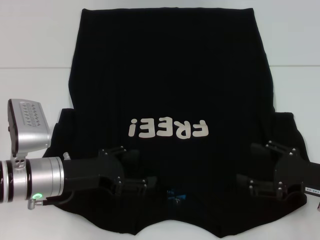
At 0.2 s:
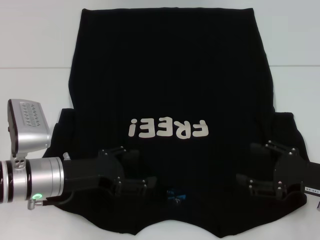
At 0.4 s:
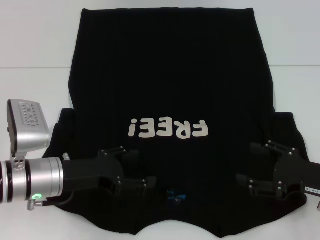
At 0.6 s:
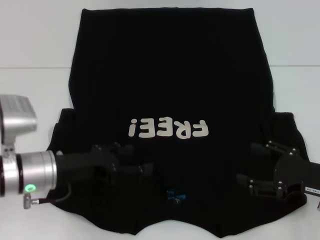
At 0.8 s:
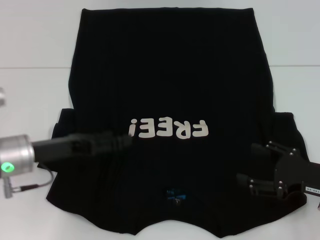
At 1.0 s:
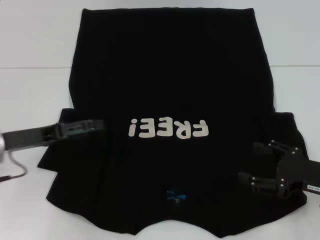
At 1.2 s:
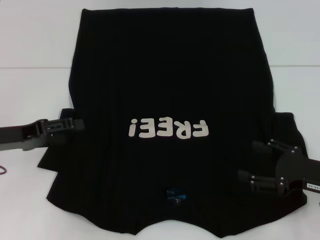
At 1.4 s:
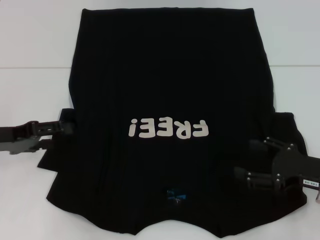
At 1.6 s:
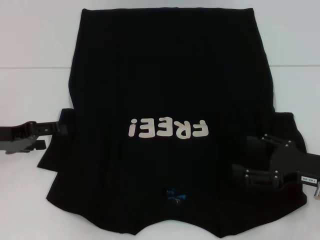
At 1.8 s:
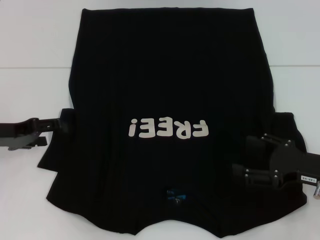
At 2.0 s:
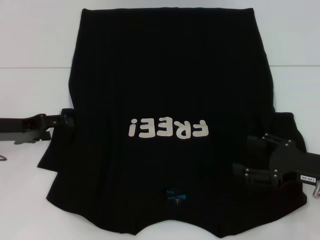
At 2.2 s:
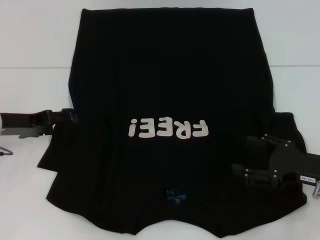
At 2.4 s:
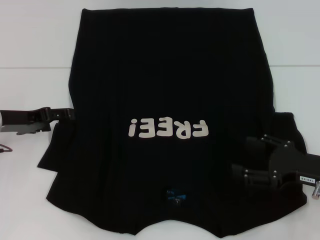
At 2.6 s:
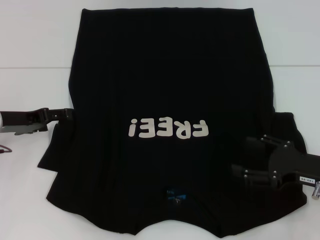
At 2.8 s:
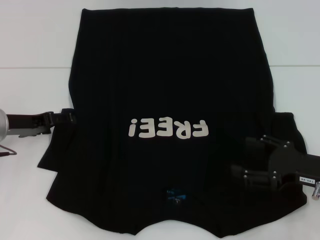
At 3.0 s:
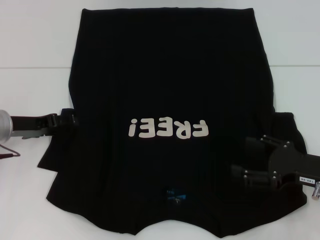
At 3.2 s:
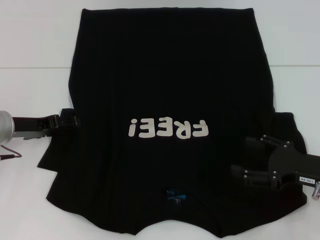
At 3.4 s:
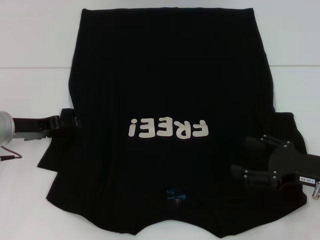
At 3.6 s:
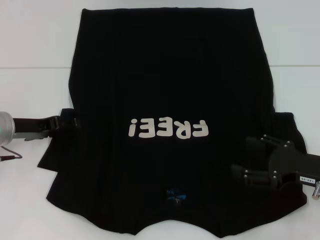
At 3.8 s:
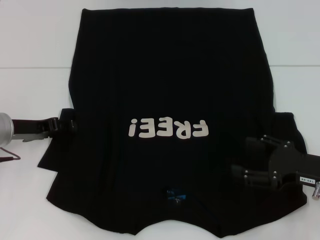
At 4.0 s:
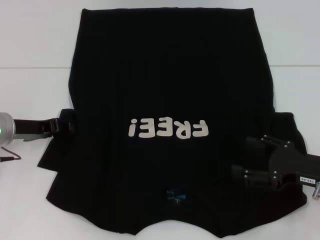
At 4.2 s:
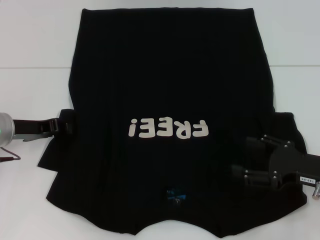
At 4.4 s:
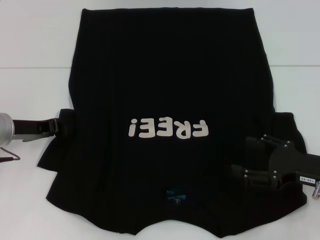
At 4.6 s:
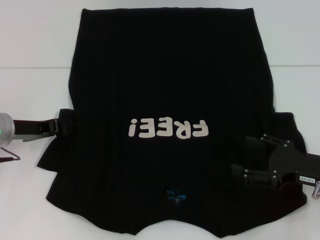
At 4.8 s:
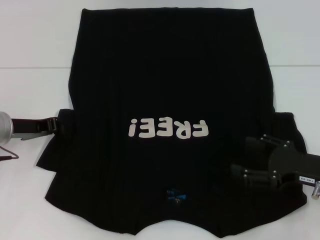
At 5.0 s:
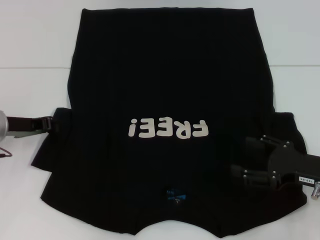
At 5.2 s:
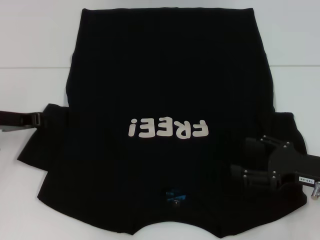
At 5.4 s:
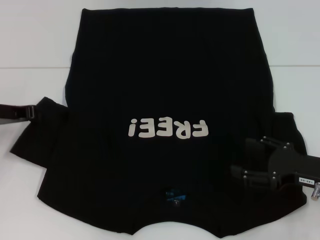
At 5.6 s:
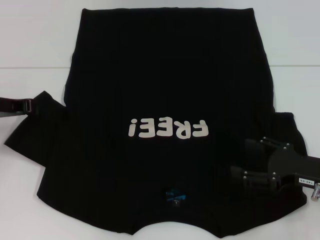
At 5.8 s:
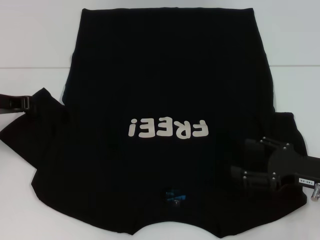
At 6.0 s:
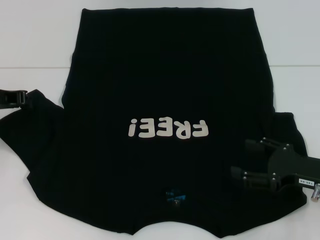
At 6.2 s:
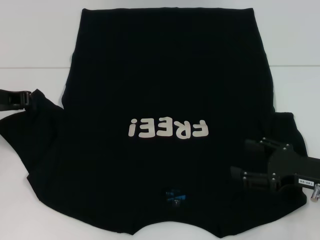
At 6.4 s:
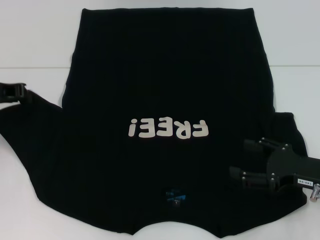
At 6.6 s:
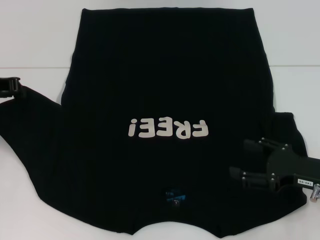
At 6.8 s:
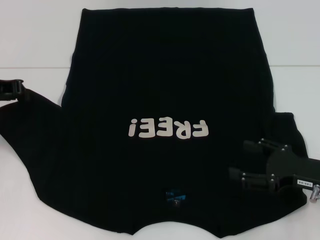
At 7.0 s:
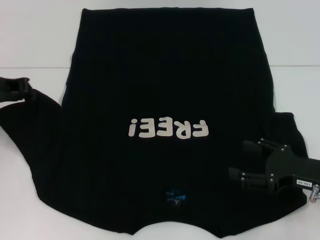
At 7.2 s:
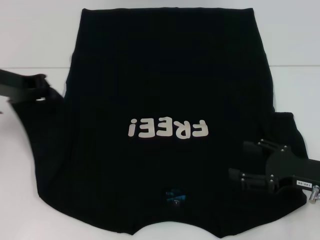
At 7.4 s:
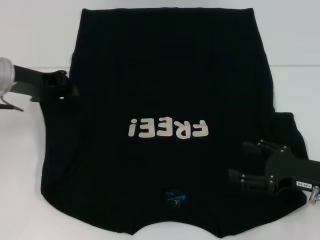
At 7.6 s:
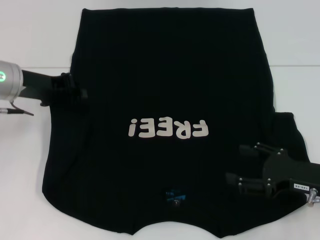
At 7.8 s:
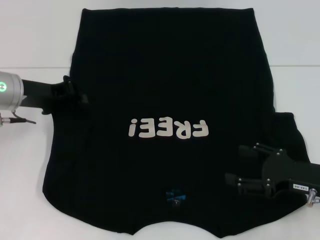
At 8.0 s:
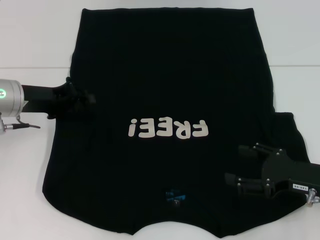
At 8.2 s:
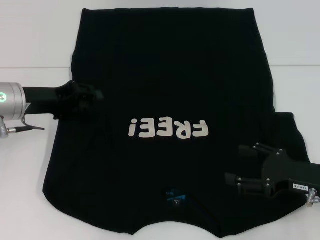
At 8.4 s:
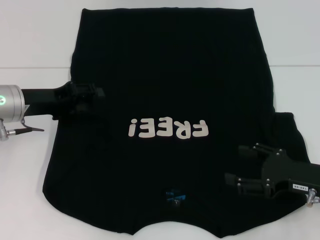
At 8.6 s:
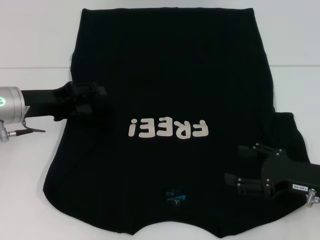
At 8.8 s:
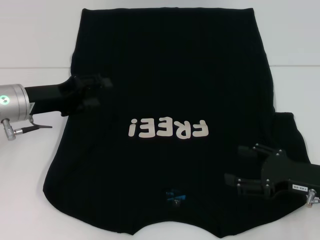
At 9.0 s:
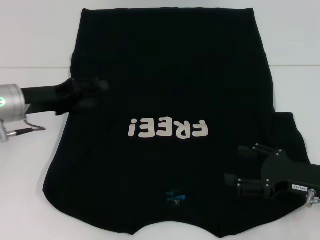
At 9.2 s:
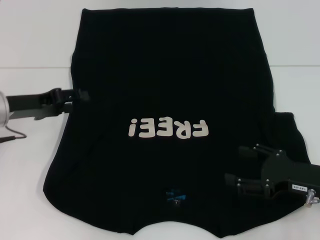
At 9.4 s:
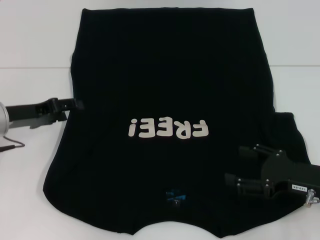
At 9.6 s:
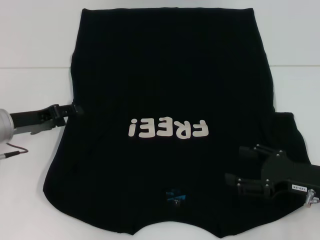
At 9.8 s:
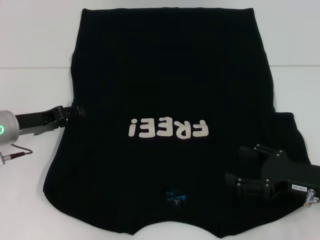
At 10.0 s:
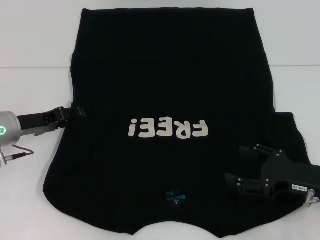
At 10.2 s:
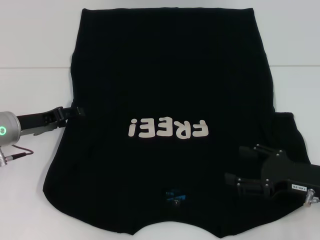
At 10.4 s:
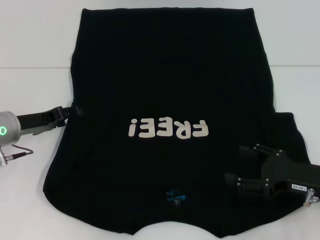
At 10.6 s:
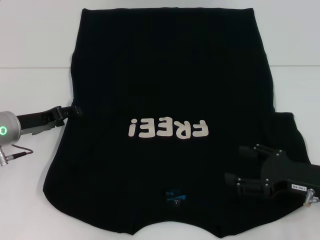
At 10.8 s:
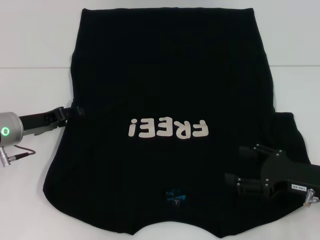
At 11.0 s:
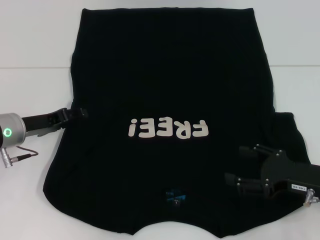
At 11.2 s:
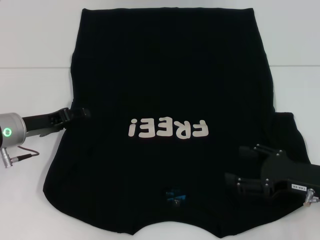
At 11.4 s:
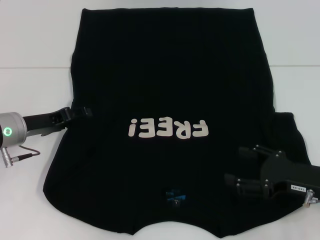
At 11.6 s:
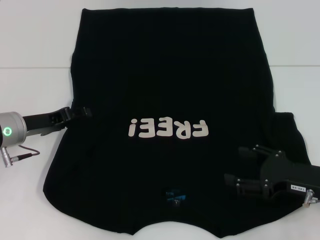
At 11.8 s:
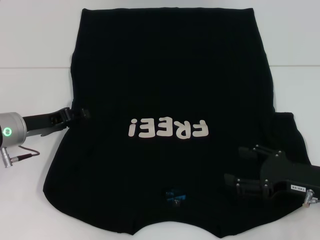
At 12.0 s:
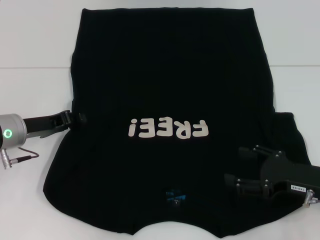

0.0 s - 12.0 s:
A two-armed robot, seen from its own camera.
Step, 0.0 s - 9.0 s: Fold the bottom left sleeve with your left hand.
0.0 s - 1.6 s: The left gripper moves to the left and upward, about 15 cm.
1.6 s - 3.0 s: The left gripper ends up roughly 5 cm from where it was.
3.0 s - 4.4 s: The left gripper closes up.
4.4 s - 6.0 s: The left gripper moves upward, some 5 cm.
6.0 s - 7.6 s: The left gripper travels to the right by about 5 cm.
7.6 s - 9.0 s: The left gripper opens up.
9.0 s - 10.4 s: The left gripper changes place by roughly 5 cm.
10.4 s - 12.0 s: Neither gripper changes place.

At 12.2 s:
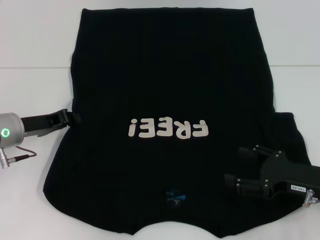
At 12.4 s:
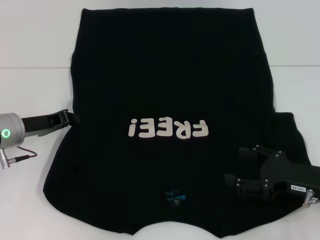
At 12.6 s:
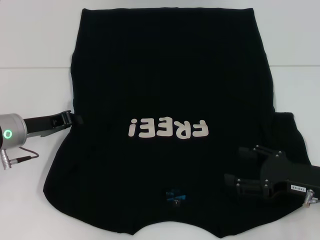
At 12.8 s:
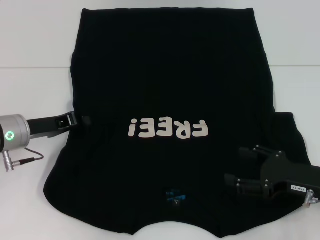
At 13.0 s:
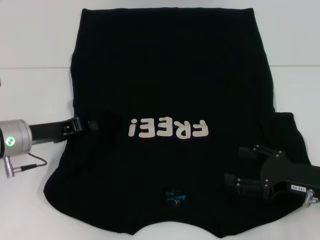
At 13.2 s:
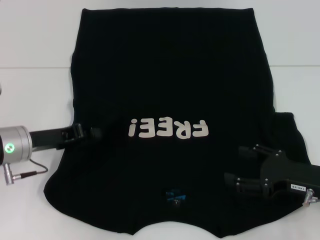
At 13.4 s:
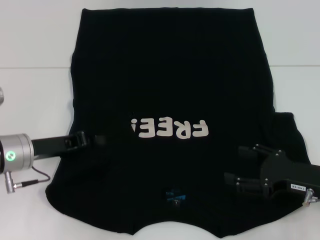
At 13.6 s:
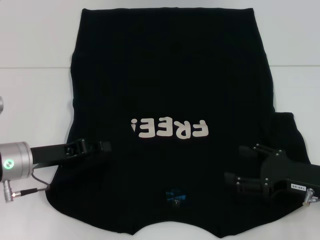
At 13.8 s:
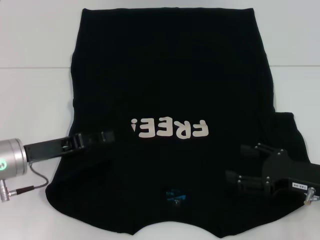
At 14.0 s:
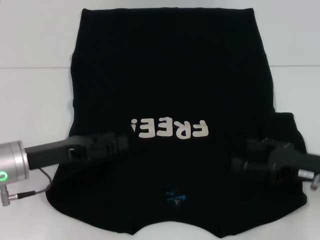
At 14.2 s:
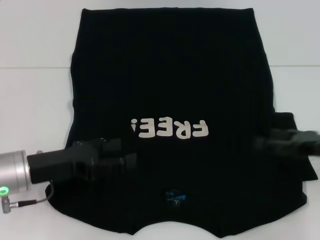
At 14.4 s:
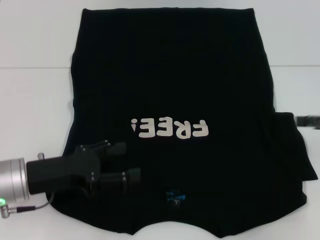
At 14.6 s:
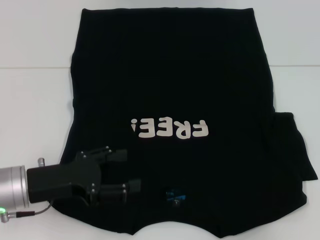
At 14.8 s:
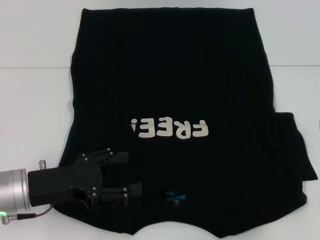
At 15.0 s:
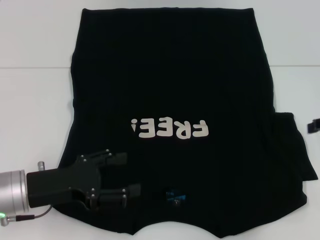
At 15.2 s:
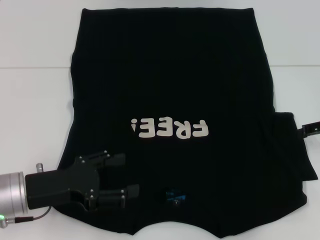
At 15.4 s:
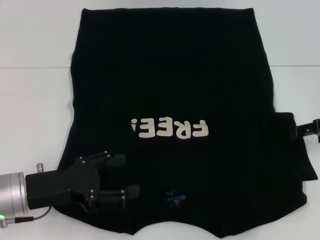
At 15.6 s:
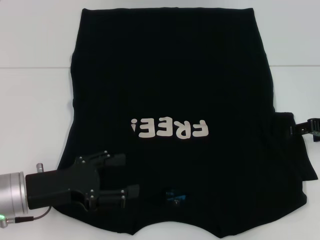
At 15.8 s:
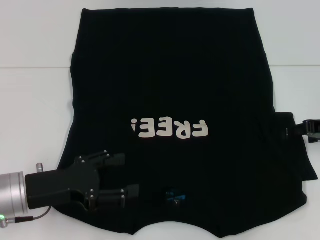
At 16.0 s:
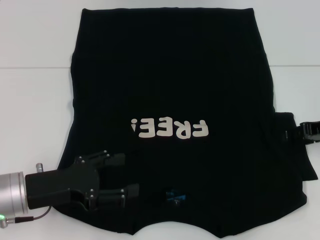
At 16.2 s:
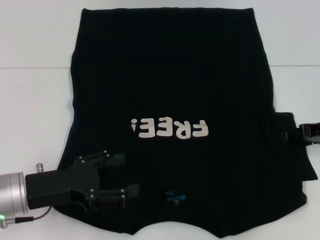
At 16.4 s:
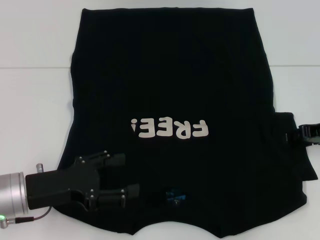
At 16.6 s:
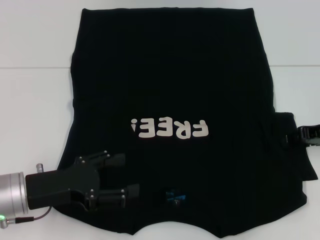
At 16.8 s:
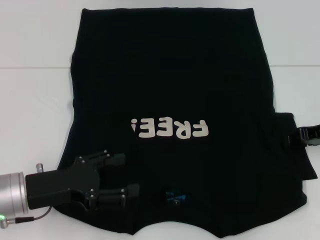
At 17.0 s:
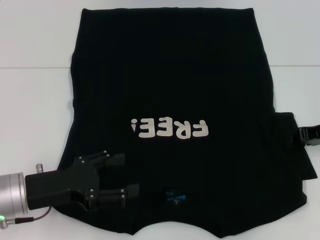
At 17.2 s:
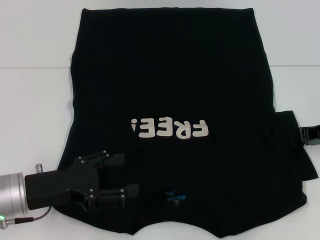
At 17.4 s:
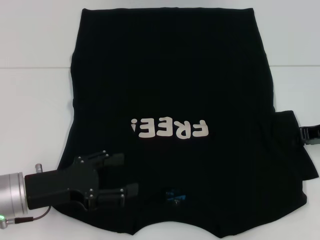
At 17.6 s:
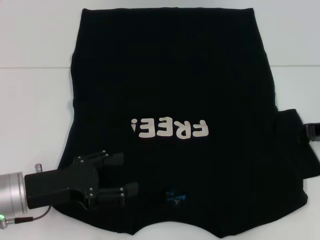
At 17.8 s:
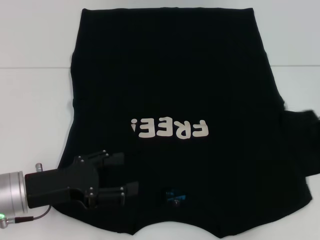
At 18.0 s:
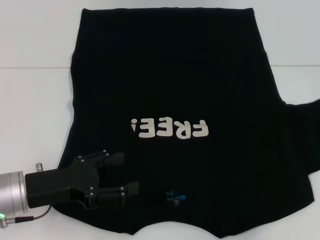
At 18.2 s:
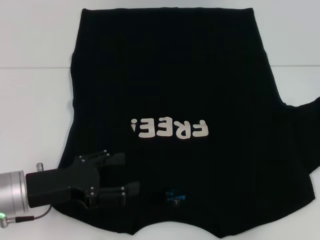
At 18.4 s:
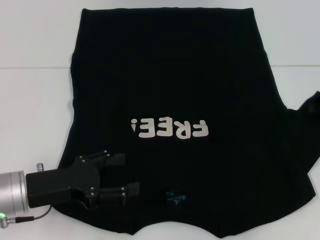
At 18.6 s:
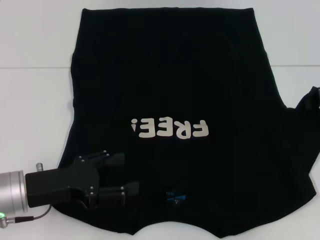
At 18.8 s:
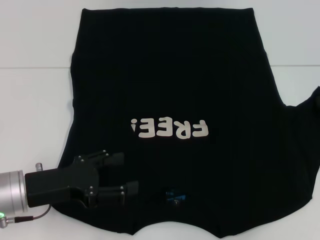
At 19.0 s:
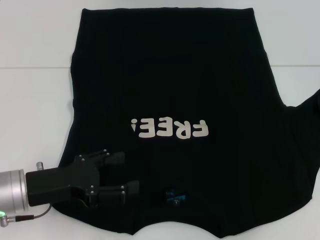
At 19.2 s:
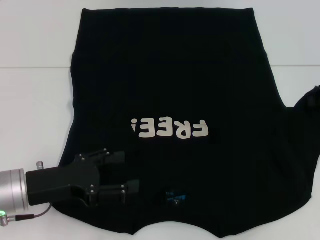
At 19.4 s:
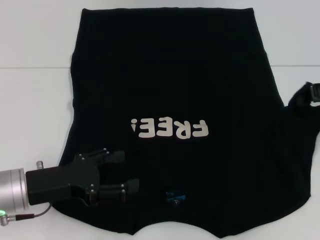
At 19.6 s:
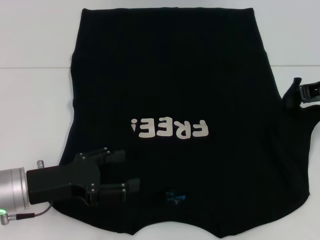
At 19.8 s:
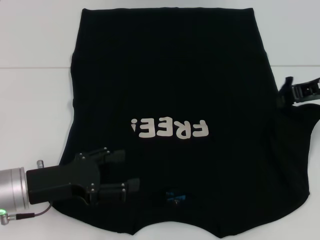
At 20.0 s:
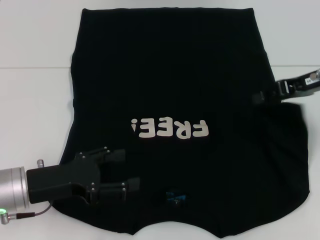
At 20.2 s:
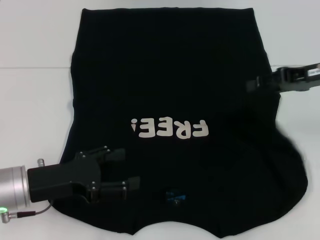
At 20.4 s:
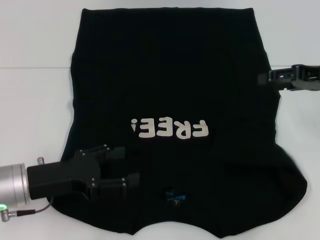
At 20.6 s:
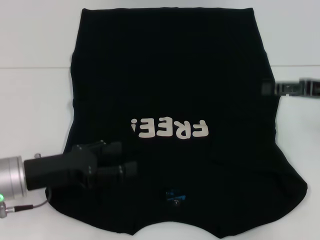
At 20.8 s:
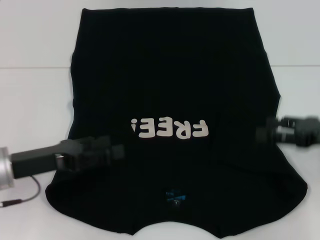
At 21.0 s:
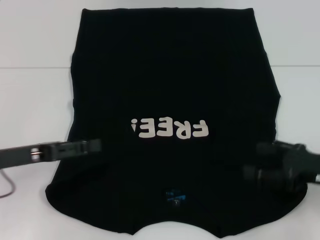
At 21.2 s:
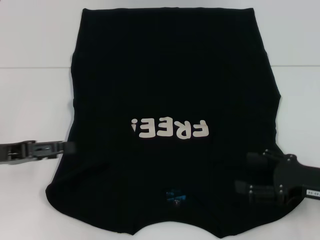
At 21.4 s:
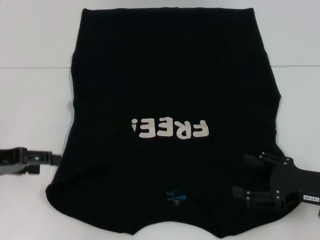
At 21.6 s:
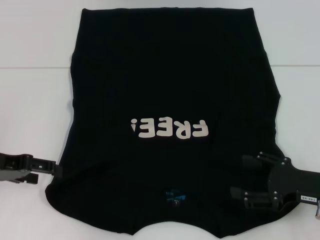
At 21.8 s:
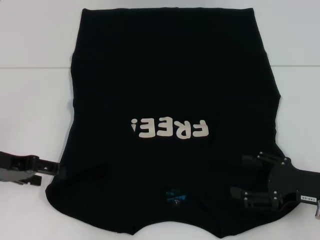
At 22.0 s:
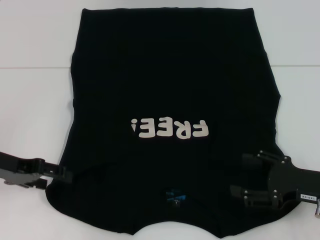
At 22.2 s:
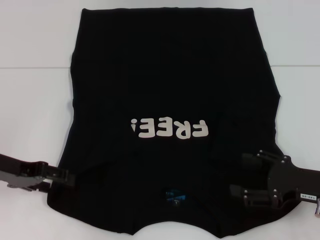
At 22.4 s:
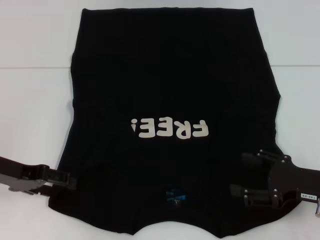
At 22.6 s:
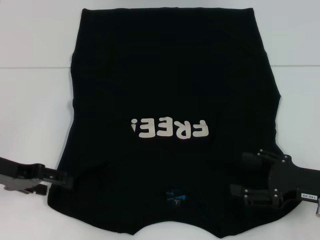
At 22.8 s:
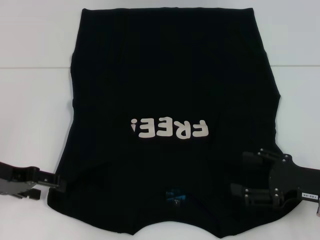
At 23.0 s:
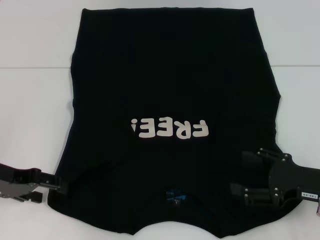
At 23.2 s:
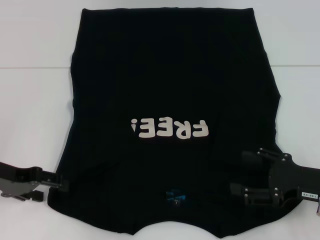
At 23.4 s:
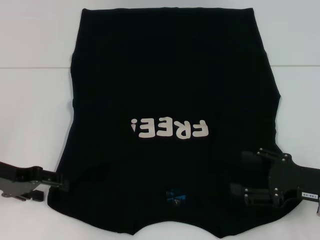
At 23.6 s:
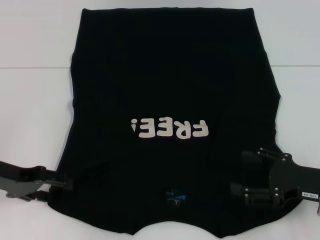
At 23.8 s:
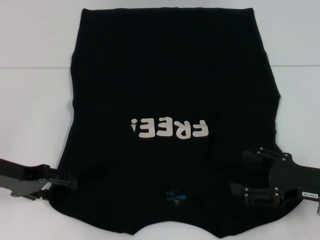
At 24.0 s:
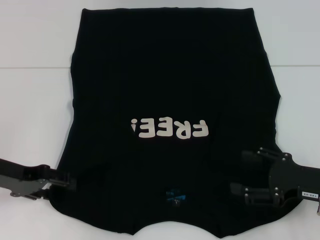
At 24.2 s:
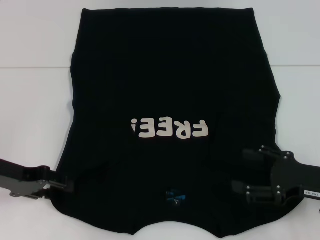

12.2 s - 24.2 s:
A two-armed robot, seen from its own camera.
Step, 12.2 s - 20.4 s: Fold the bottom right sleeve with your right hand.
12.2 s - 13.8 s: The left gripper moves backward, about 5 cm.
13.8 s - 15.2 s: The left gripper travels backward by approximately 5 cm, and opens its fingers. Meanwhile the right gripper moves forward, upward and to the right, some 15 cm.
16.6 s - 18.2 s: The right gripper travels upward by approximately 5 cm, and closes up.
18.2 s - 19.8 s: The right gripper goes approximately 5 cm to the left.
19.8 s - 21.2 s: The right gripper goes roughly 20 cm backward and downward, and opens its fingers; the left gripper is displaced to the left by roughly 10 cm.
22.6 s - 24.2 s: There are only small adjustments of the grippers.
